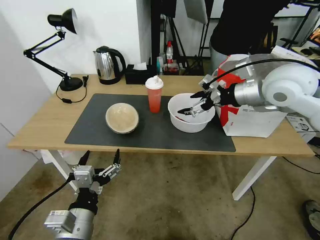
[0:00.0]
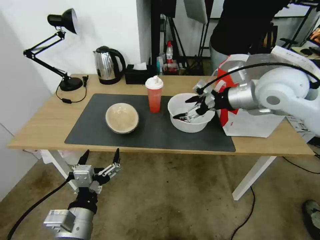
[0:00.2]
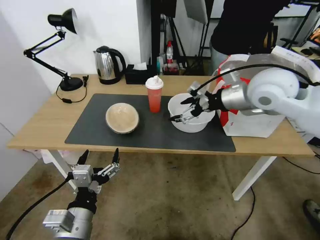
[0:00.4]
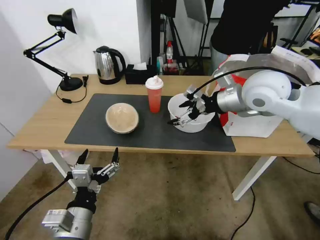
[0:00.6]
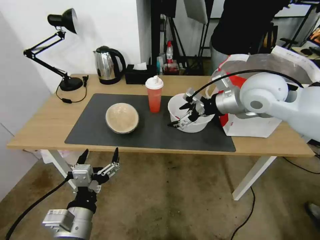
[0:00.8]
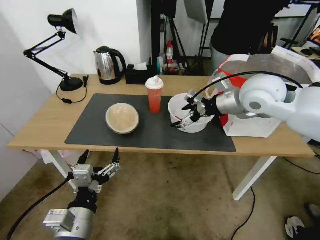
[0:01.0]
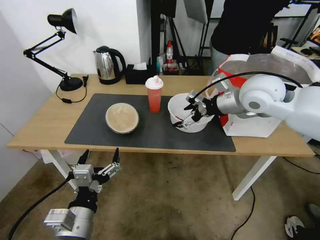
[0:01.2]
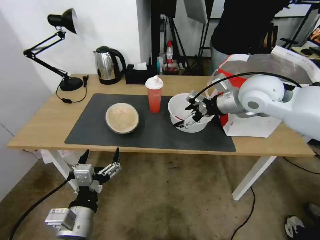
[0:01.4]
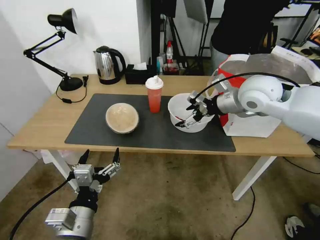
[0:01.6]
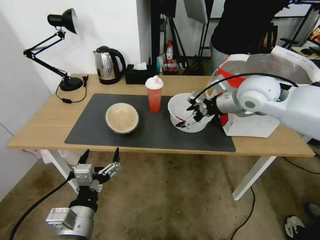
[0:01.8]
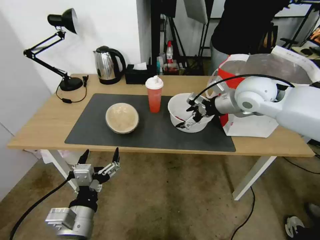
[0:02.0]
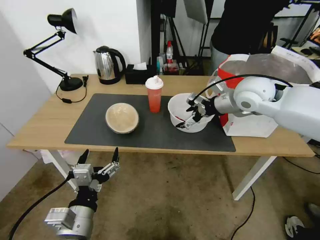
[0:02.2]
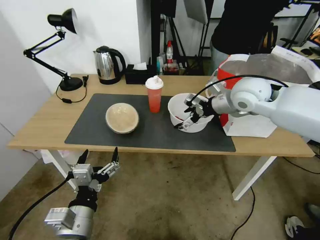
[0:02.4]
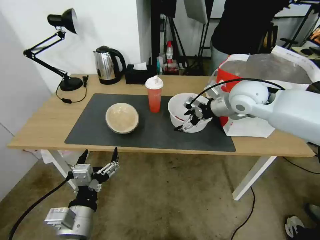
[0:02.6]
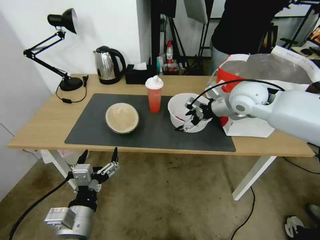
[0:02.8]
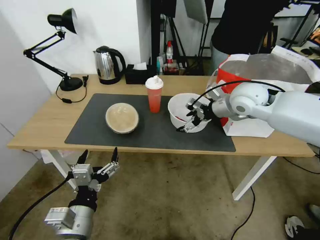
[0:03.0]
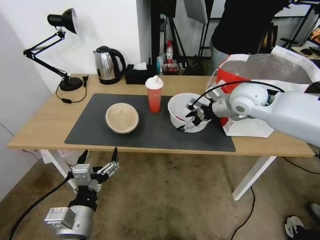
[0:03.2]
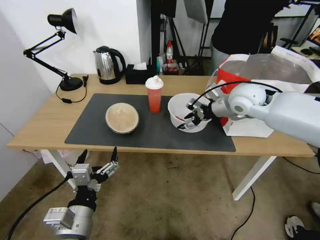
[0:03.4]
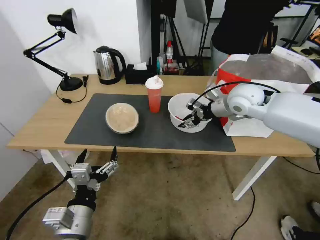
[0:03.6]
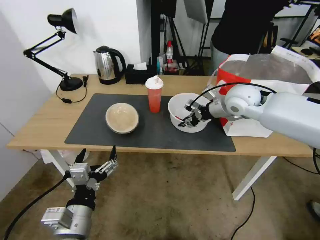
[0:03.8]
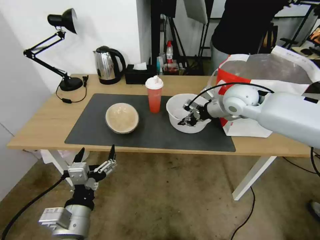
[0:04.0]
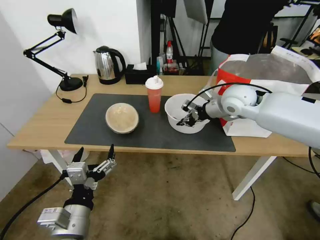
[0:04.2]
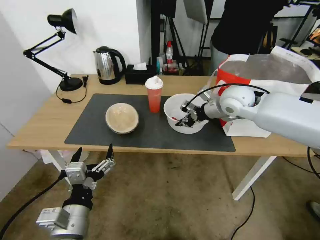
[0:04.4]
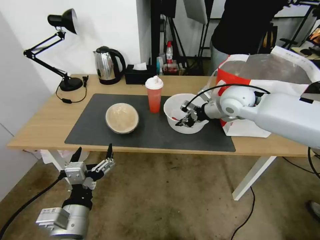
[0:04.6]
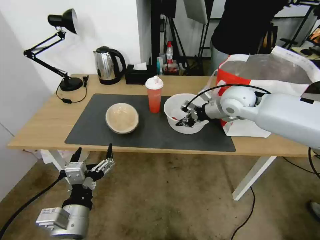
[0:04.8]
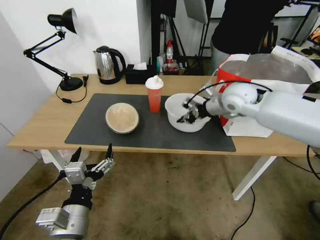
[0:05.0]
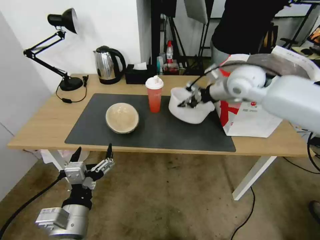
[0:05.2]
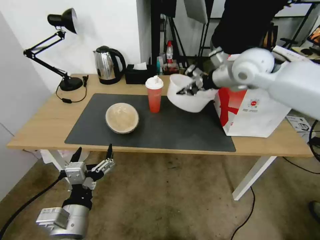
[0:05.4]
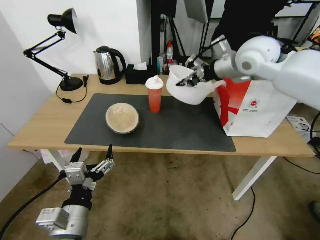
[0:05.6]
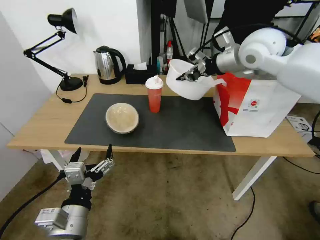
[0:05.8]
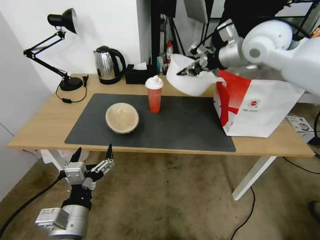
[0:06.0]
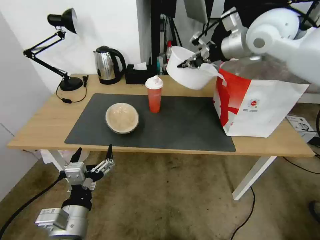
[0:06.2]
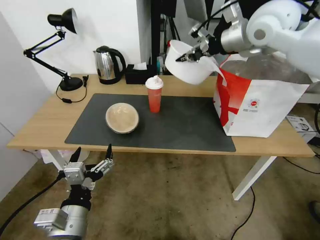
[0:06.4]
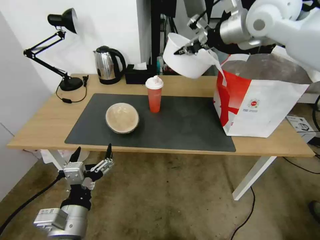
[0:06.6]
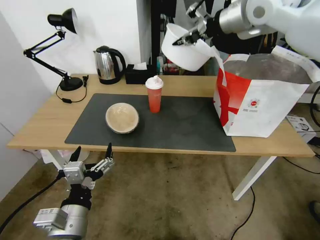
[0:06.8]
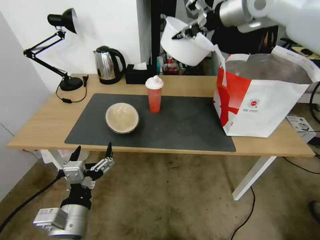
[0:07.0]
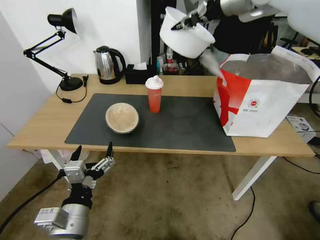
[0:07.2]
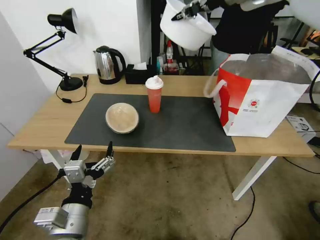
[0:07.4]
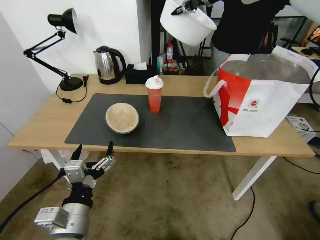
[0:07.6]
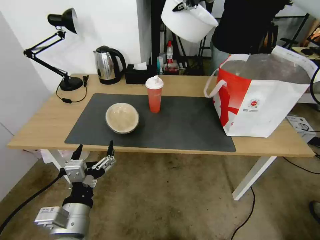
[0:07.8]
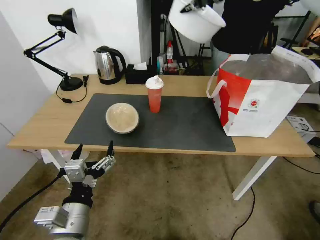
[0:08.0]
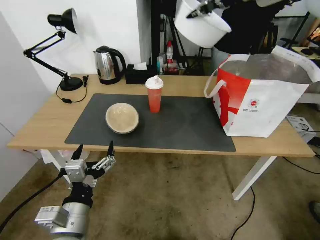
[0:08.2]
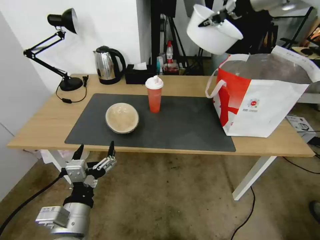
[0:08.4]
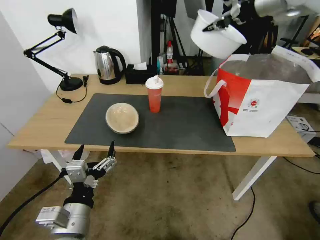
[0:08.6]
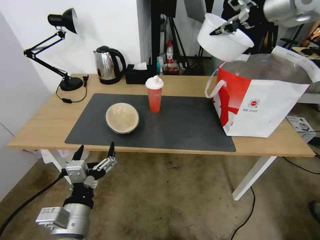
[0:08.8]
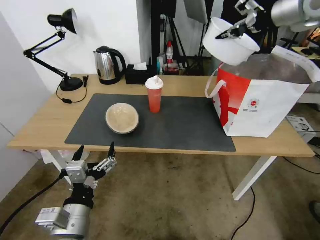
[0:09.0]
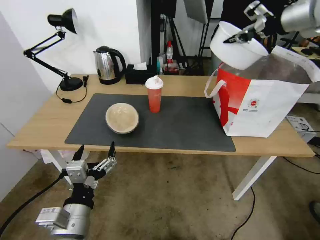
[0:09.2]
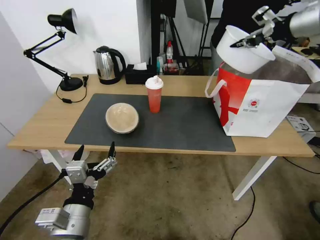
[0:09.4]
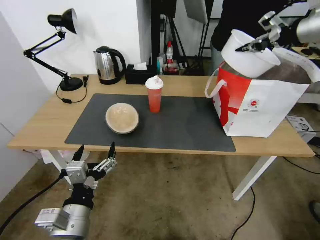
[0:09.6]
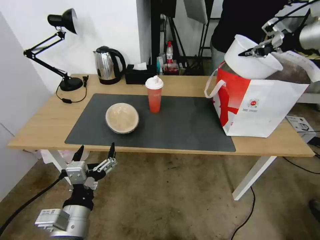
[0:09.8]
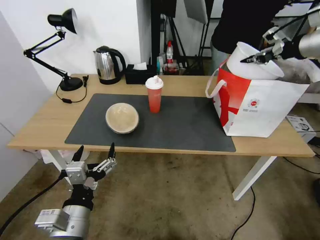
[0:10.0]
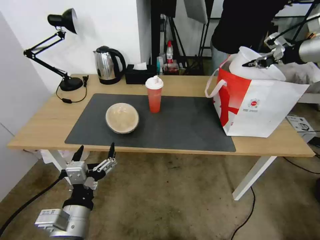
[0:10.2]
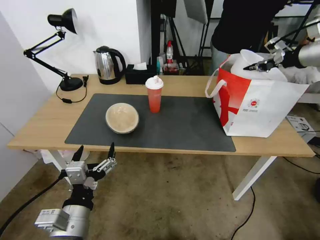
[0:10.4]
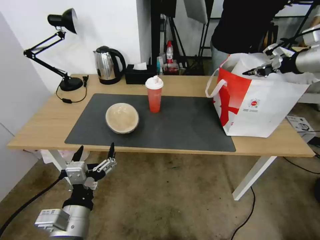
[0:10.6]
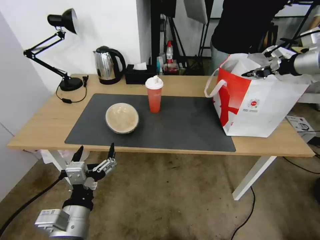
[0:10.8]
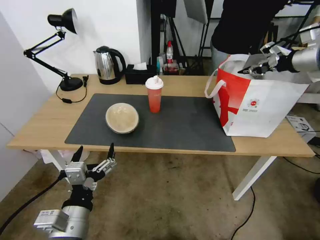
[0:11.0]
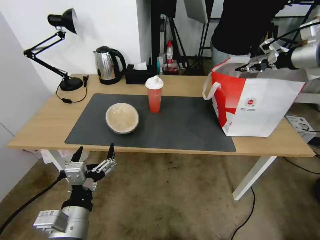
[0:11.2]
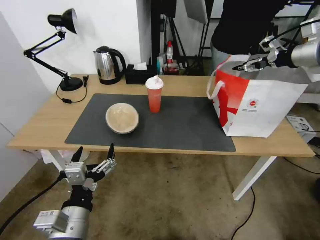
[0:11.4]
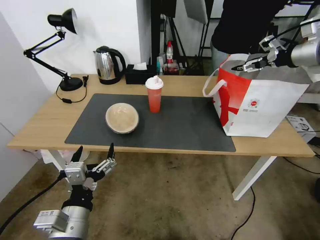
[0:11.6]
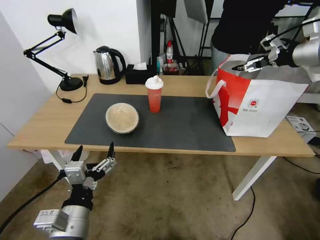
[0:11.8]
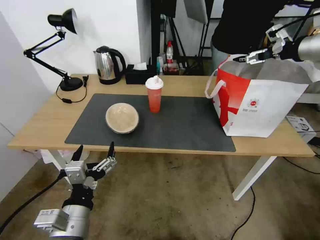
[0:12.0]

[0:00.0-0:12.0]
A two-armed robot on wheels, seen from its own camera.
Task of the whole recording: Pick up the trash from the table and place it into the takeout bag.
0:00.0 to 0:01.6: The right gripper moves some 5 cm.
0:01.6 to 0:03.0: The grippers make only small movements.
0:03.0 to 0:04.4: The right gripper closes its fingers.
0:04.4 to 0:06.0: The right gripper moves upward, about 15 cm.
0:06.0 to 0:07.6: The right gripper travels upward by approximately 15 cm.
0:07.6 to 0:09.0: The right gripper shifts roughly 10 cm to the right.
0:09.0 to 0:10.4: The right gripper shifts approximately 15 cm to the right and downward.
0:10.4 to 0:12.0: The right gripper opens.

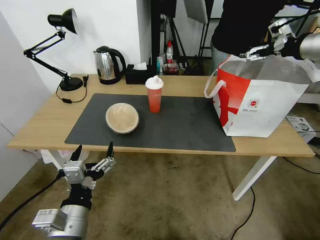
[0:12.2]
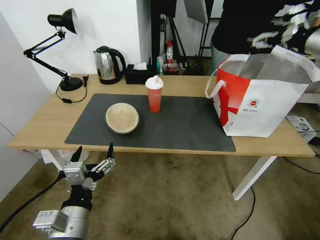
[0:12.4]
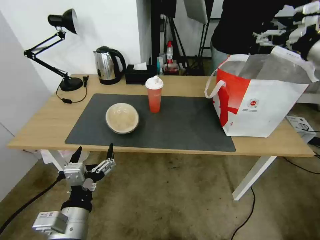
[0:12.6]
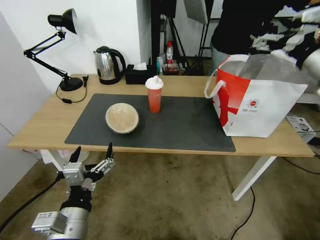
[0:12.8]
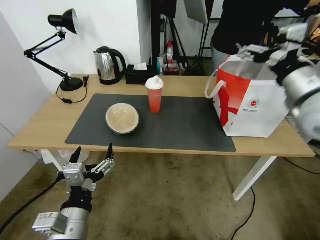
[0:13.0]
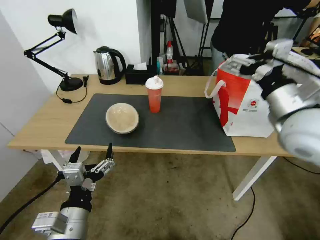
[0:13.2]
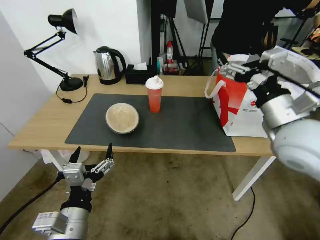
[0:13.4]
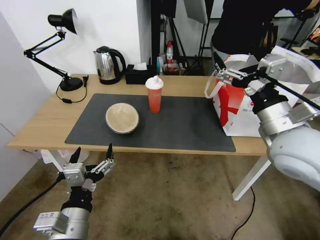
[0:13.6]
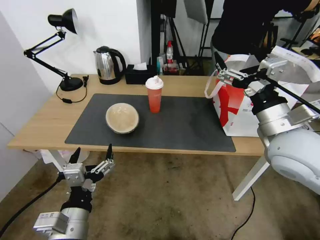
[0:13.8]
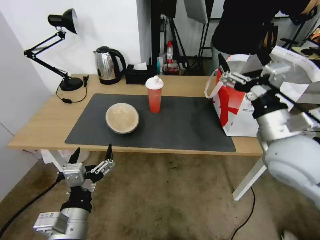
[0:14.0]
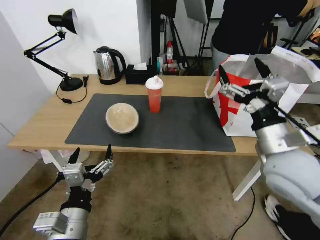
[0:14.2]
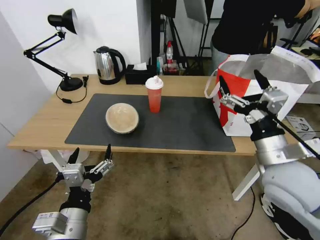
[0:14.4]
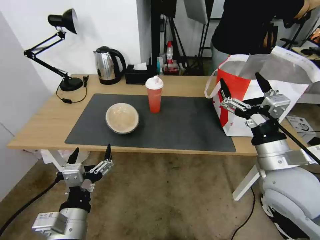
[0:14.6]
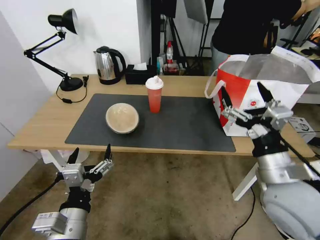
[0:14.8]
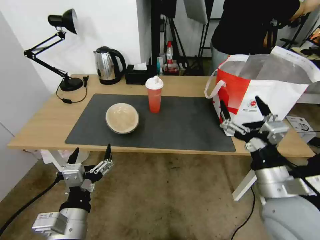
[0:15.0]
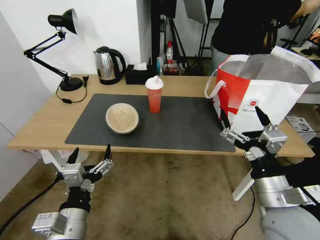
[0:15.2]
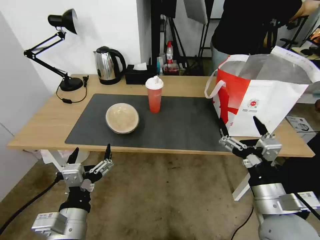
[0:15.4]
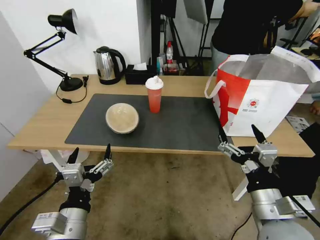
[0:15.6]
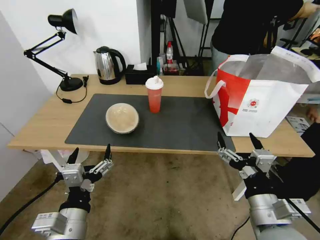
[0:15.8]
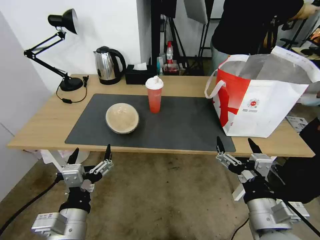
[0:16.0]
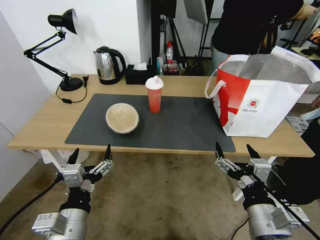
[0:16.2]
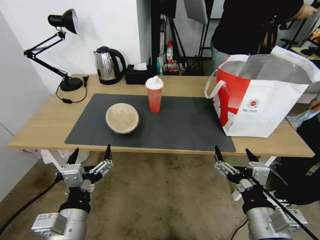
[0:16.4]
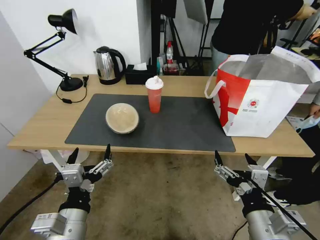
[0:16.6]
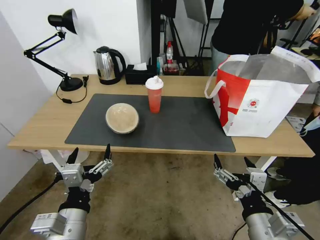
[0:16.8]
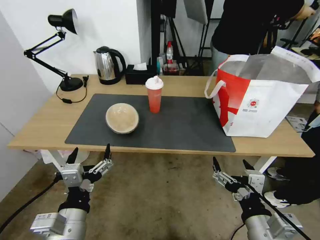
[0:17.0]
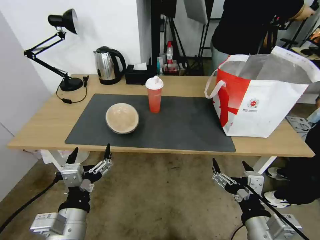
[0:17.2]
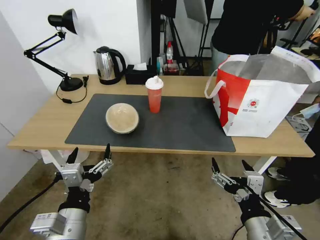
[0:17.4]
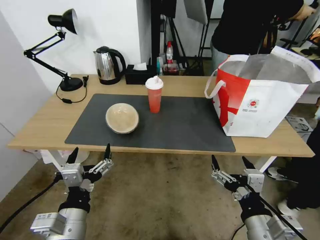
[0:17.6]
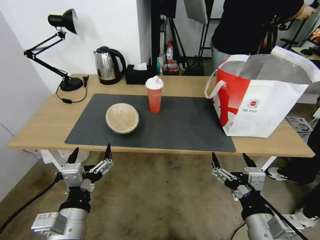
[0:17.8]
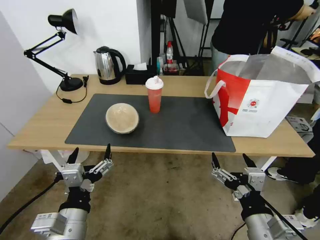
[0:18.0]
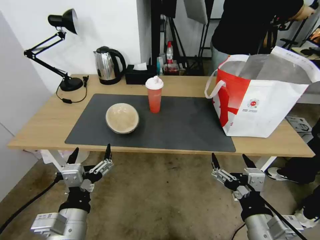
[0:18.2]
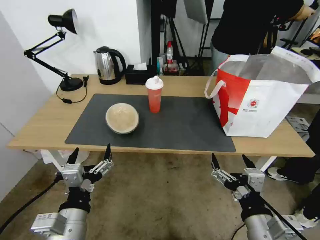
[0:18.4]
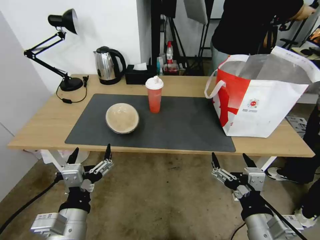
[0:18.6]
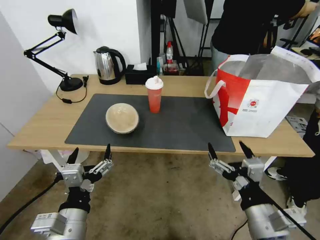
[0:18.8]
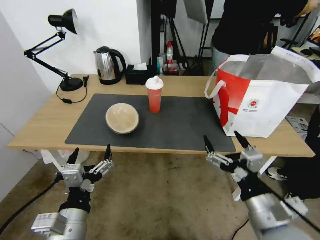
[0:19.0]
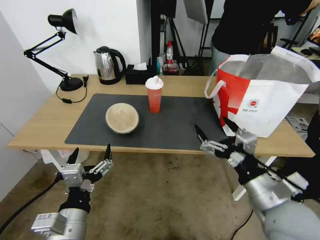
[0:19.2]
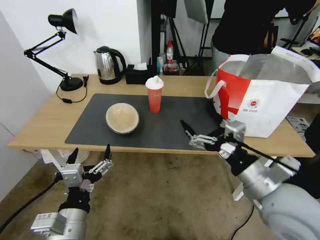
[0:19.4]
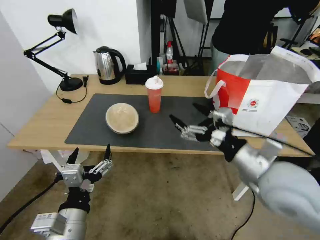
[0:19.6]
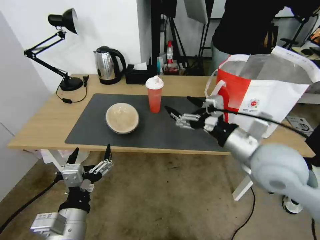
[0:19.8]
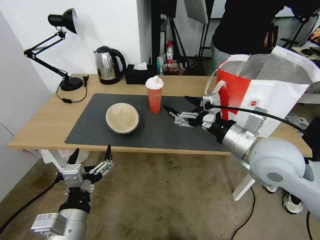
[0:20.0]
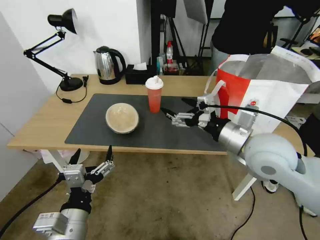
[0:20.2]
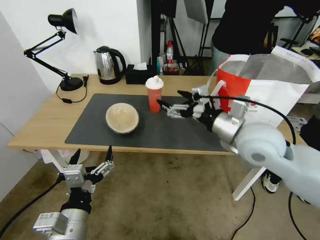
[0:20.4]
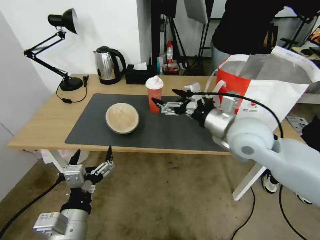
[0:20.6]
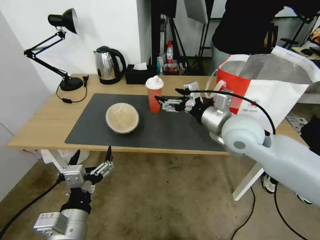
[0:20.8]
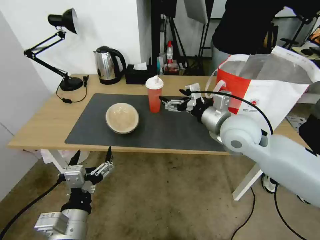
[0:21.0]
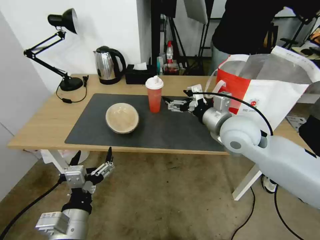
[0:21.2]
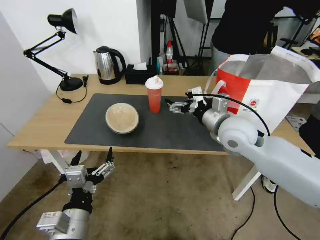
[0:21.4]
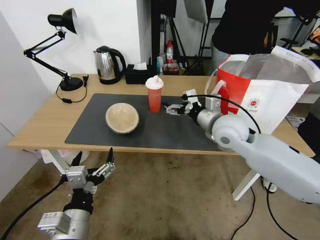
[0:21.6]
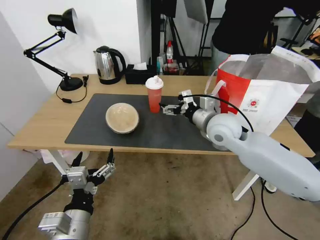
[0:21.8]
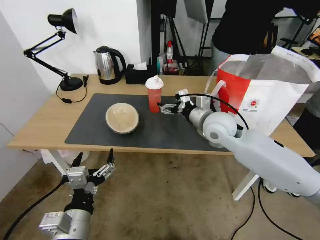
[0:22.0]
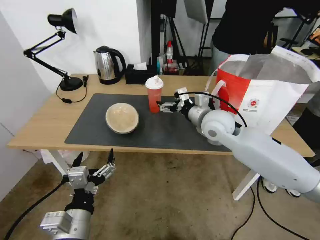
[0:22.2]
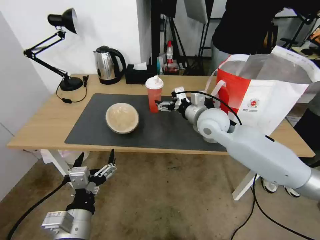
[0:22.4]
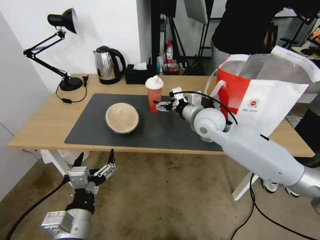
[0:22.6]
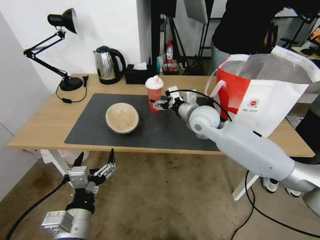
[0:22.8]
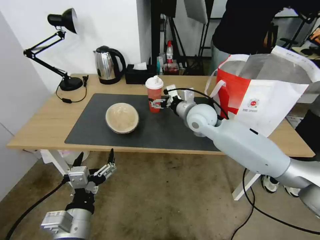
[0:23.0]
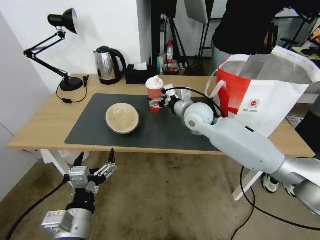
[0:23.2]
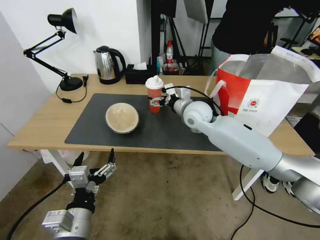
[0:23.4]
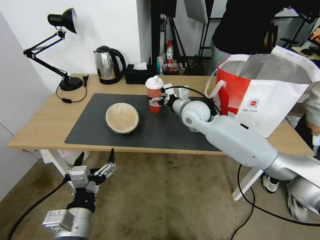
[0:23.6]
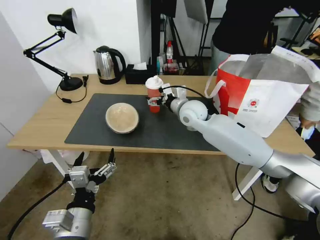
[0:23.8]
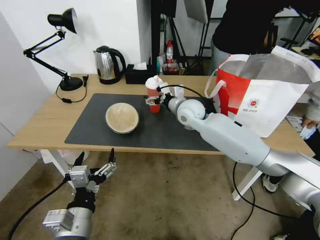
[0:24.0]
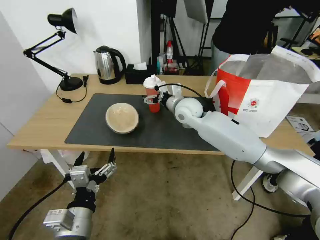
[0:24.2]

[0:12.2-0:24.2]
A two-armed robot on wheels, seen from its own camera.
Task of the whole recording: Pick up the trash from the table and place it into the takeout bag.
0:12.2 to 0:13.8: The right gripper goes some 30 cm backward, downward and to the left.
0:13.8 to 0:15.2: The right gripper heads backward and downward, covering roughly 15 cm.
0:15.2 to 0:16.6: The right gripper heads backward, covering roughly 5 cm.
0:16.6 to 0:18.2: The grippers stay close to where they were, moving slightly.
0:18.2 to 0:19.8: The right gripper moves forward and upward, about 20 cm.
0:19.8 to 0:21.2: The right gripper heads forward, covering roughly 10 cm.
0:21.2 to 0:22.6: The right gripper heads forward and to the left, covering about 10 cm.
0:22.6 to 0:24.2: The right gripper shifts approximately 10 cm forward and to the left.
